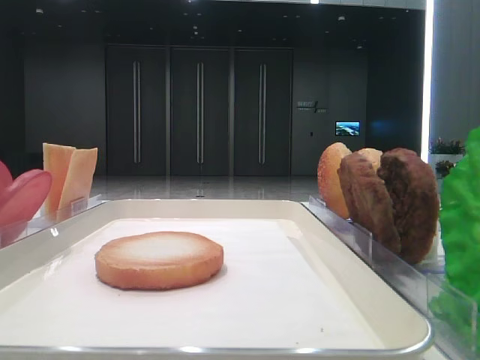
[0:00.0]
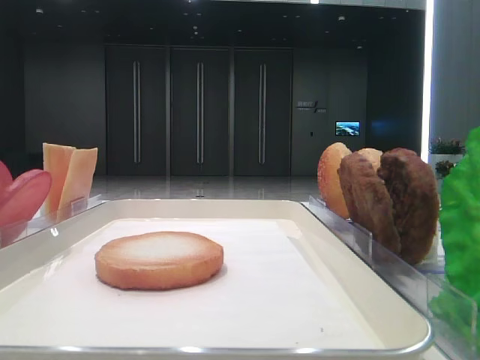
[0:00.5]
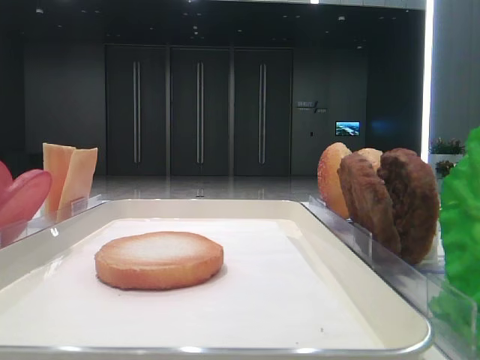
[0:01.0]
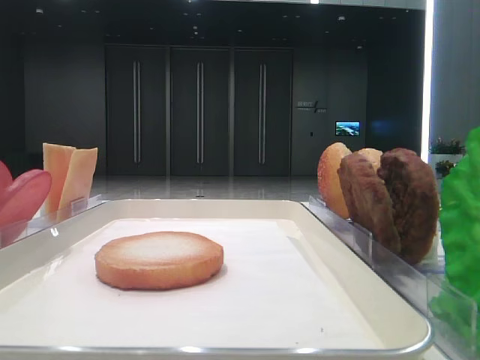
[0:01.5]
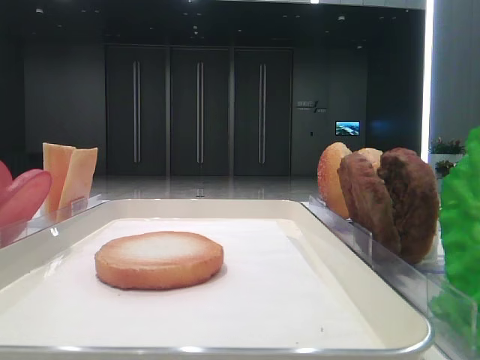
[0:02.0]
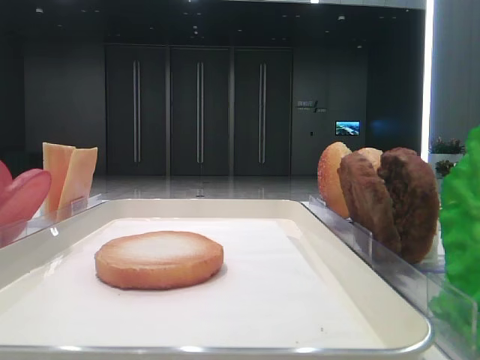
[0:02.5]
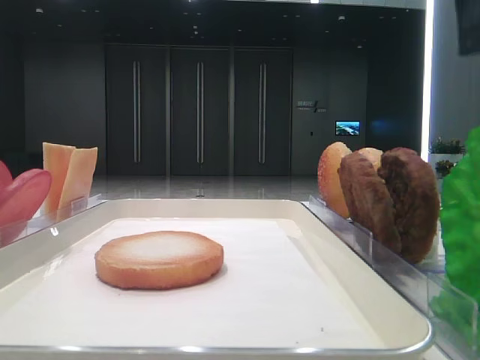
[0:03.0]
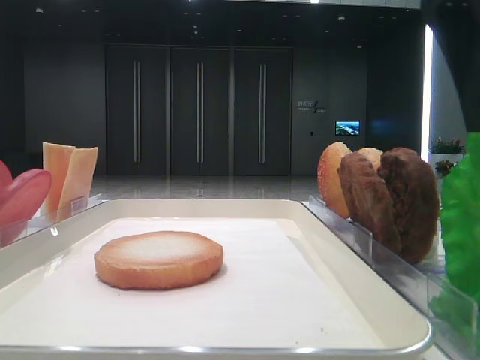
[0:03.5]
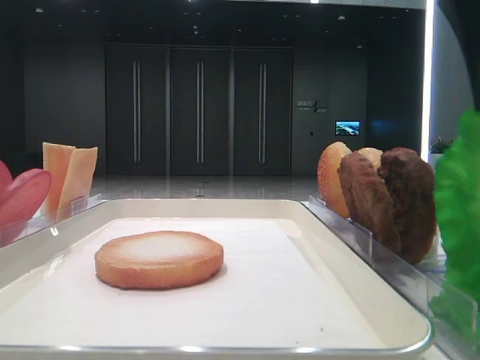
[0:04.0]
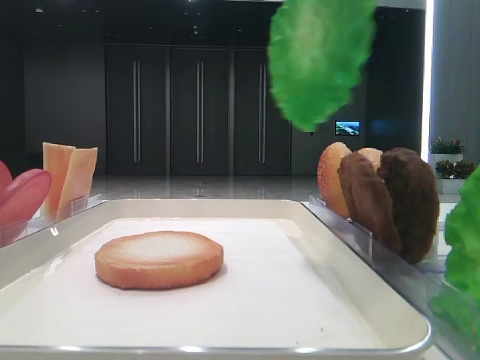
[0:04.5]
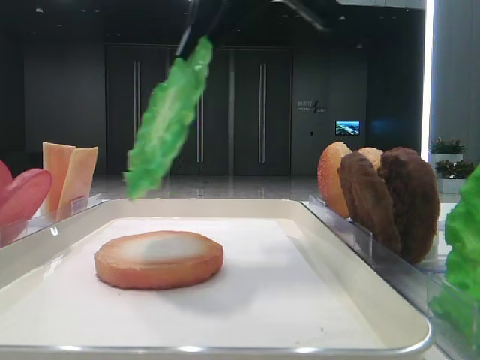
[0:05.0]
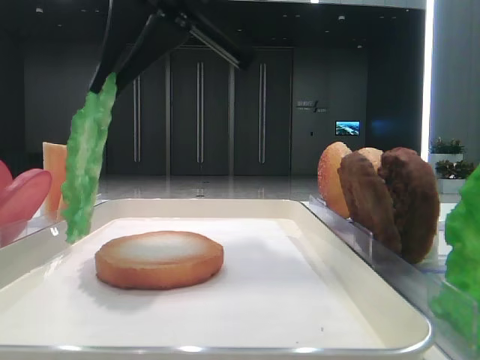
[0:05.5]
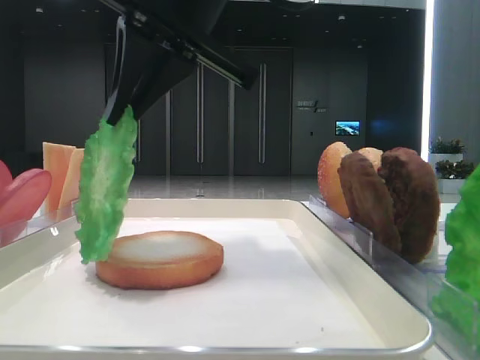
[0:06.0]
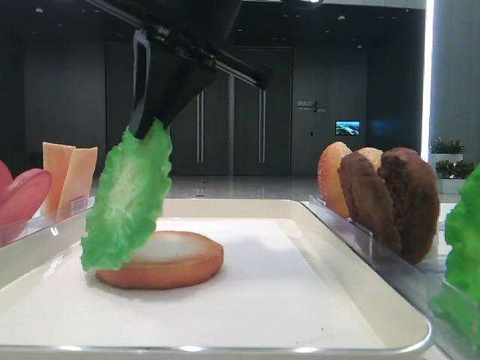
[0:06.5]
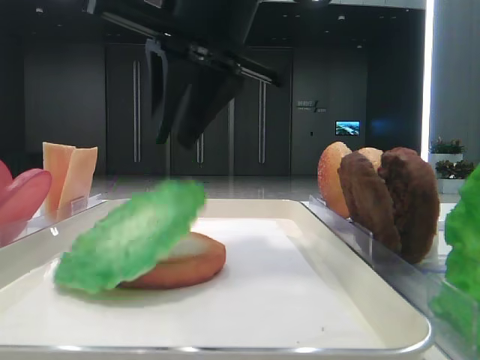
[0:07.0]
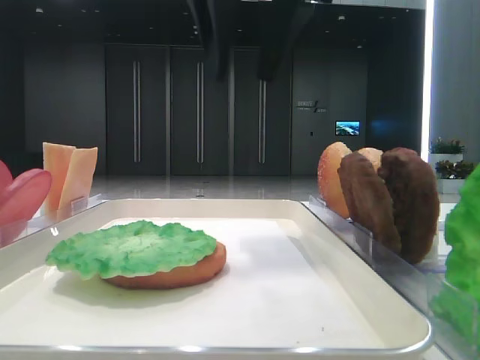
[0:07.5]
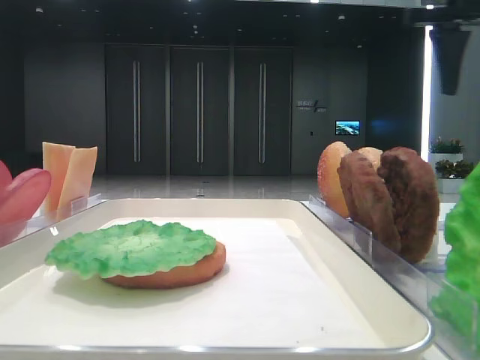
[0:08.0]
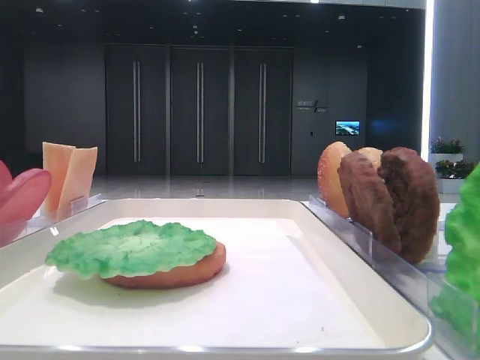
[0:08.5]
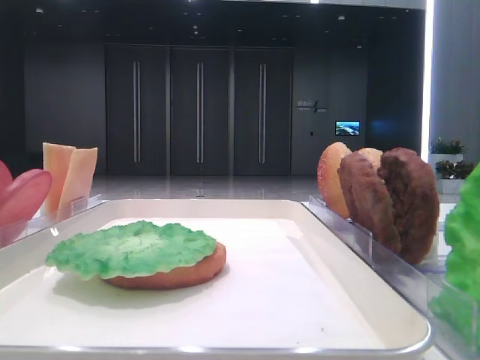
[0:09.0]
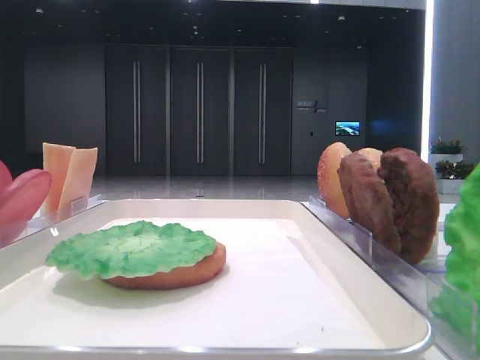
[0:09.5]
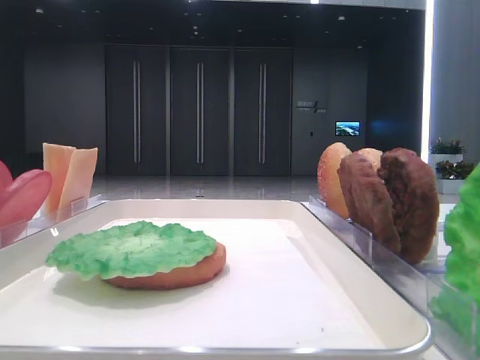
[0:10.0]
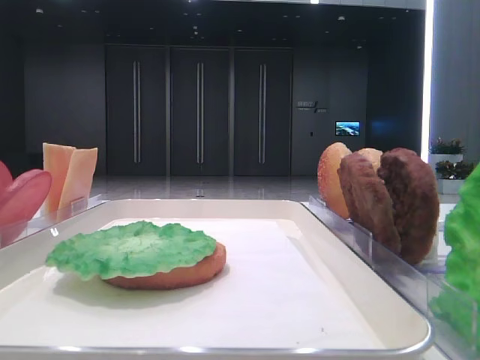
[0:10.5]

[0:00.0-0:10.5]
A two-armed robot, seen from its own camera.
Step, 0:00.0 to 0:03.5: Grab the lettuce leaf with the right hand.
Step, 0:04.0 to 0:07.0: Place the lettuce leaf on the bottom bread with the right hand.
0:02.0 to 0:04.0: The right gripper shifts about 20 cm to the left and forward, and closes its fingers.
0:04.0 to 0:06.5: The right gripper moves to the left and forward, some 15 cm; the left gripper closes.
0:06.5 to 0:08.5: The right gripper travels to the right by approximately 35 cm, and opens.
0:08.5 to 0:10.5: The right gripper heads backward, covering some 30 cm.

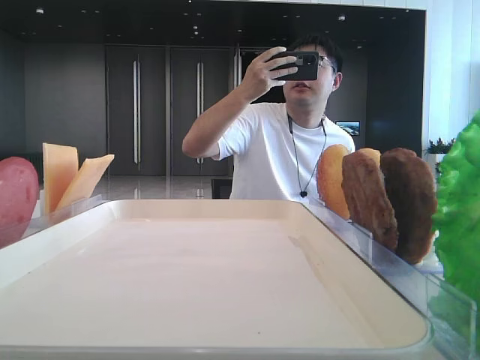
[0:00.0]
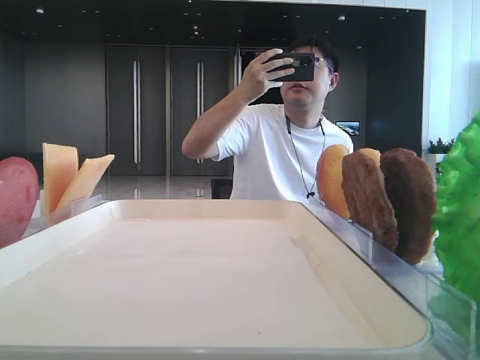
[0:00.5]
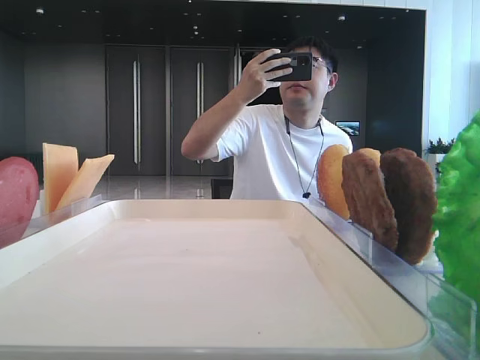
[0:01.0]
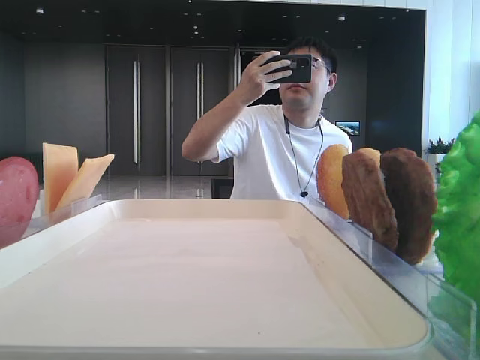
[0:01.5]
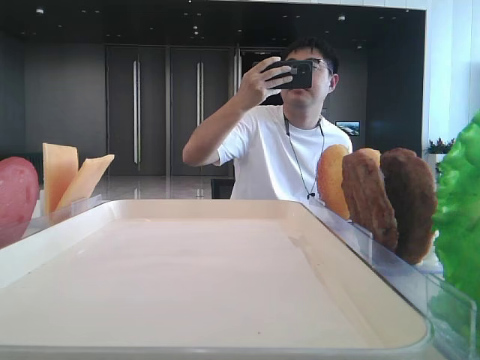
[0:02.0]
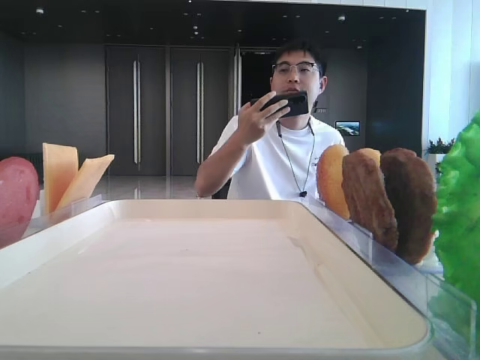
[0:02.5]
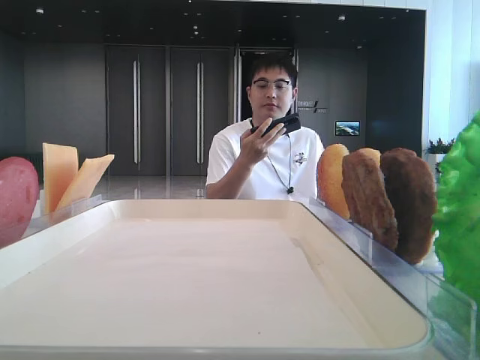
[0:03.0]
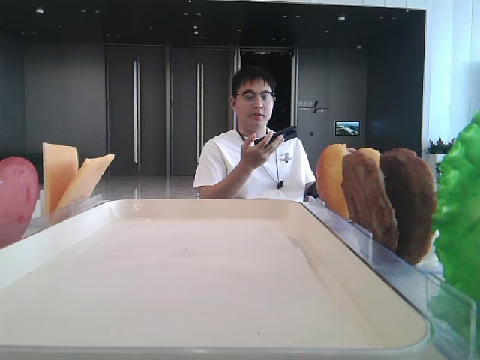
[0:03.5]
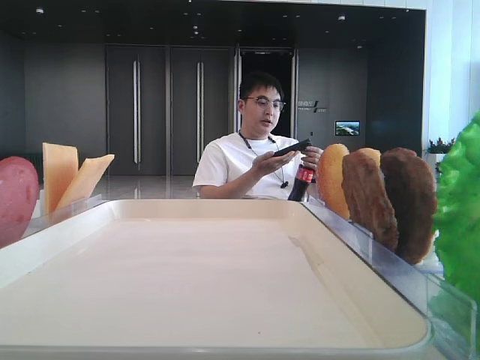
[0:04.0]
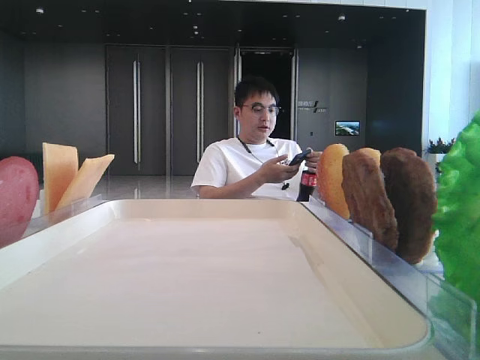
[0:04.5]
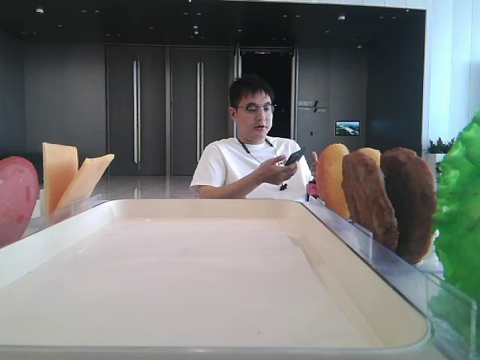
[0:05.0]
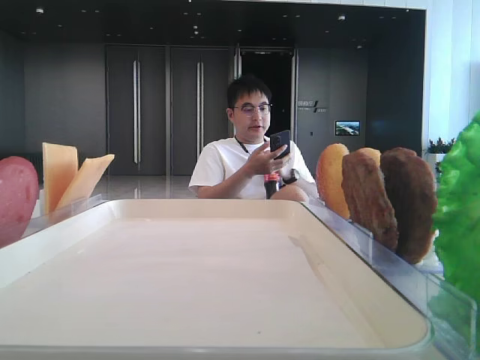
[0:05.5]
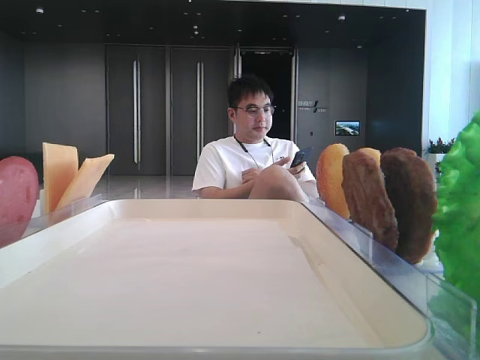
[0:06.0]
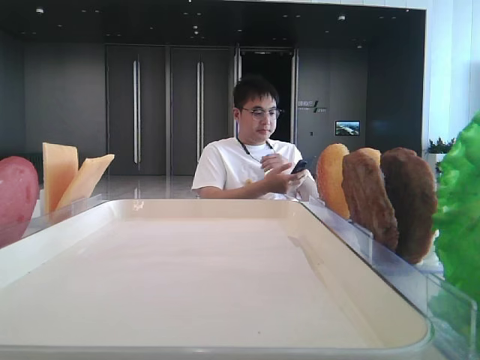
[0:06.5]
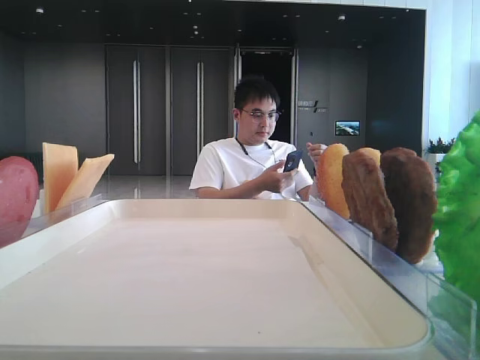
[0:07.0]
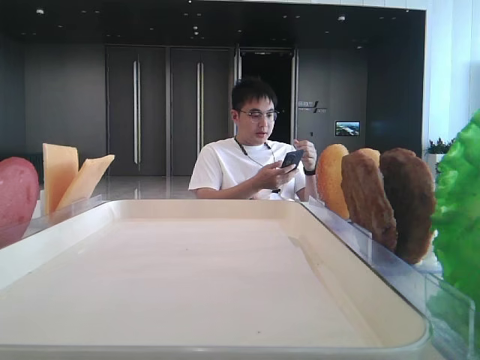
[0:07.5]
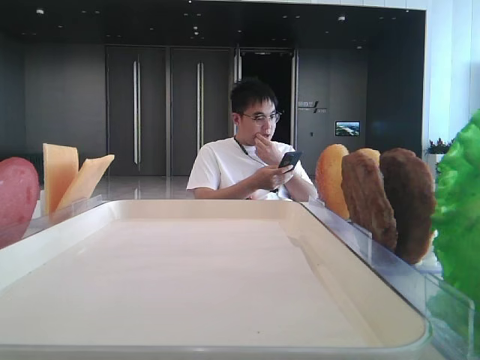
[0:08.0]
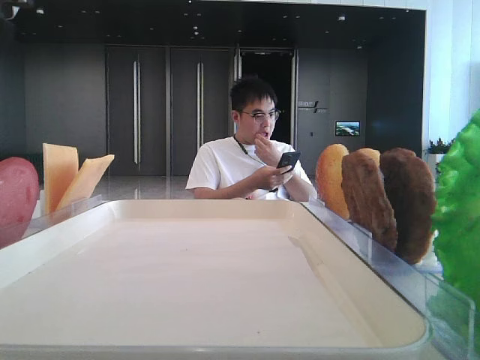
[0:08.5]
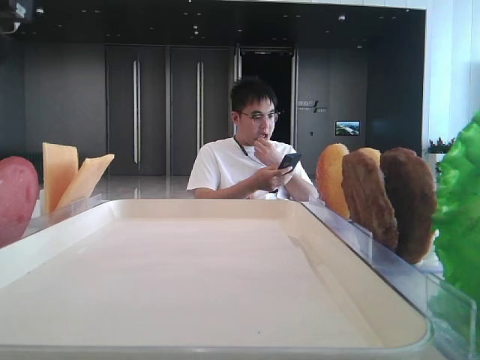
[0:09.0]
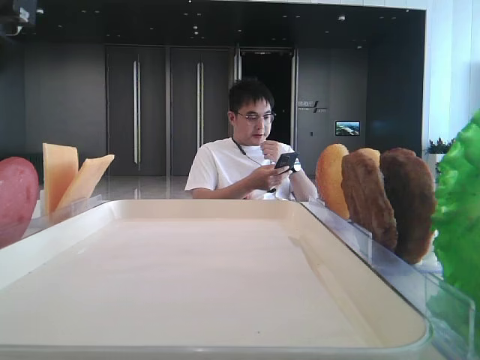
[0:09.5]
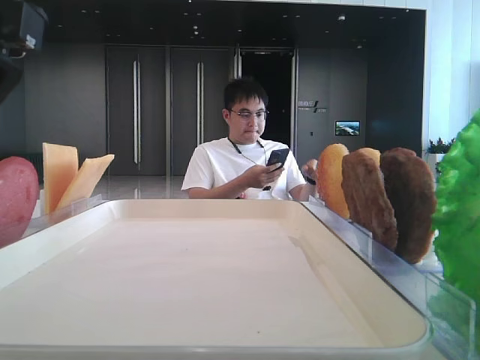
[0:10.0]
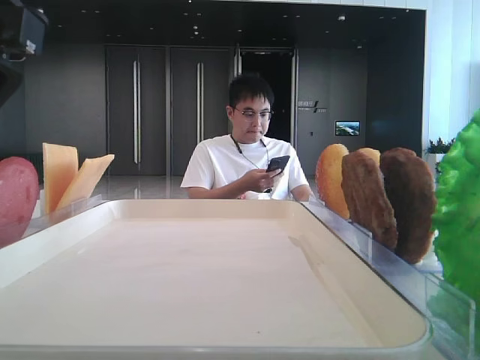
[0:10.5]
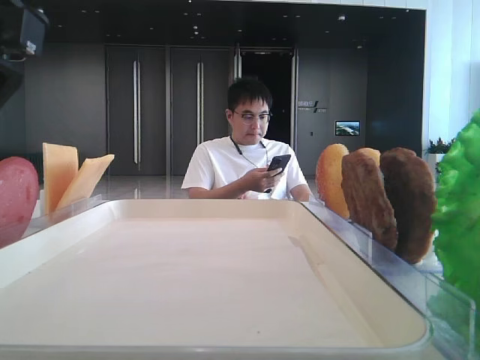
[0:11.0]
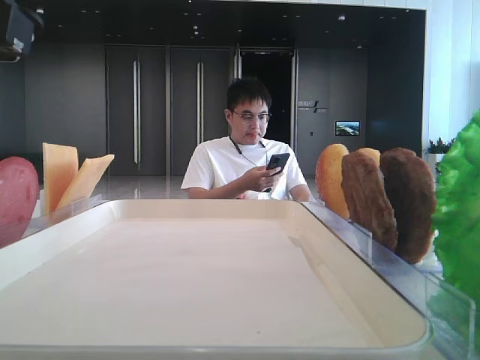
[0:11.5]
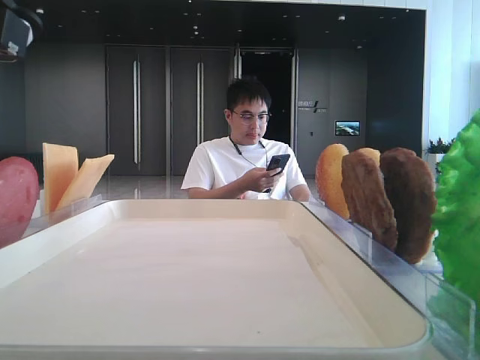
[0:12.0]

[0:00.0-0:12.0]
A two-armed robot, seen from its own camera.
0:02.0 to 0:04.0: The left gripper shifts roughly 10 cm forward and upward.
0:04.0 to 0:06.0: The left gripper shifts some 5 cm forward.
0:06.0 to 0:08.0: The left gripper heads to the right, covering approximately 10 cm.
0:08.0 to 0:10.0: There are only small adjustments of the grippers.
0:10.0 to 0:12.0: The left gripper closes up.

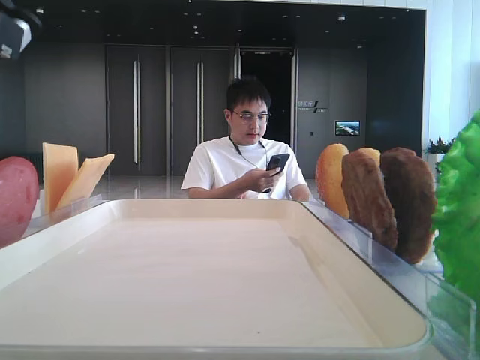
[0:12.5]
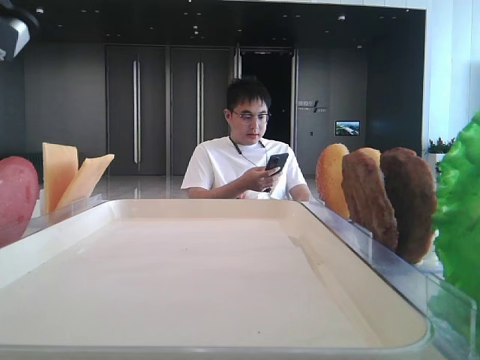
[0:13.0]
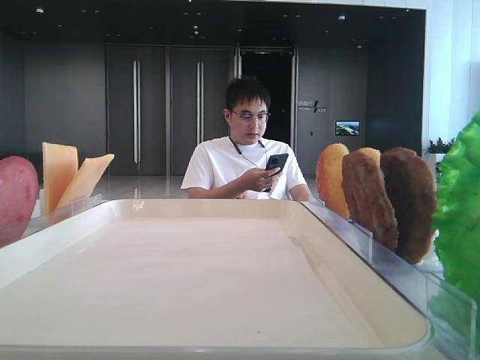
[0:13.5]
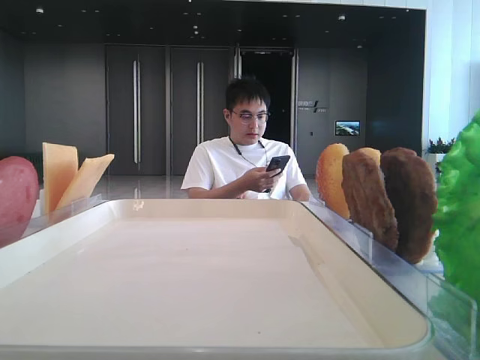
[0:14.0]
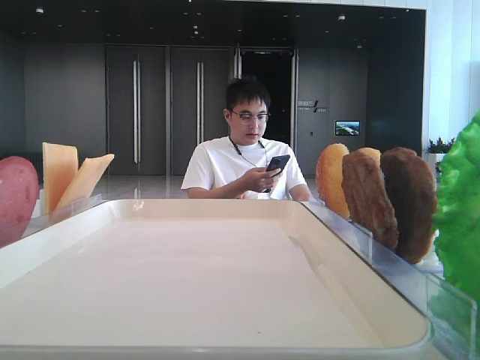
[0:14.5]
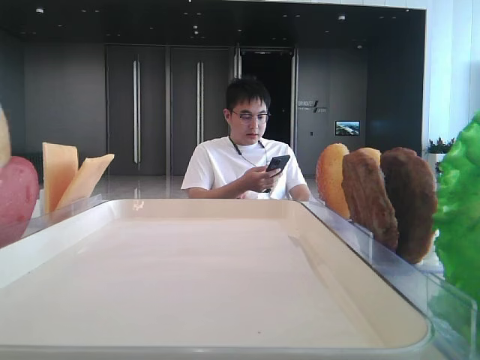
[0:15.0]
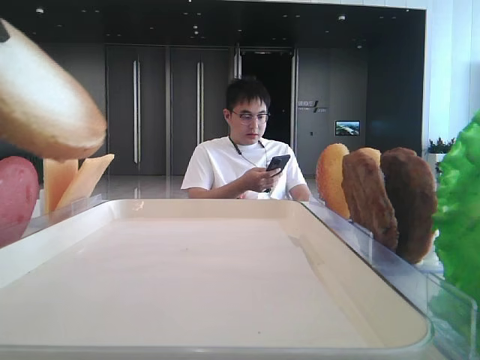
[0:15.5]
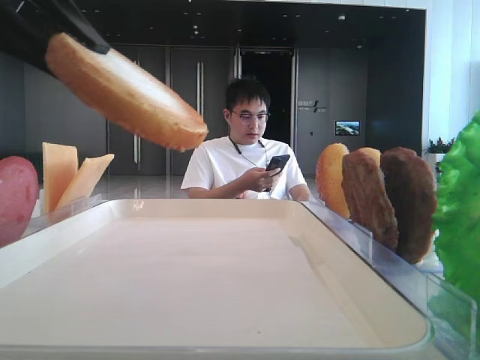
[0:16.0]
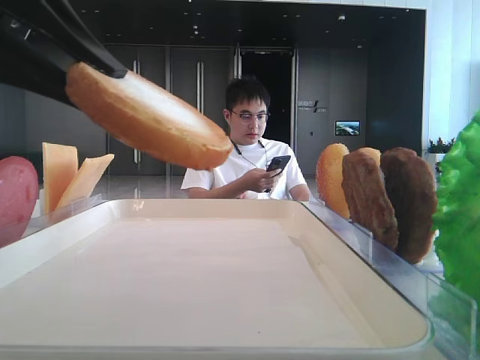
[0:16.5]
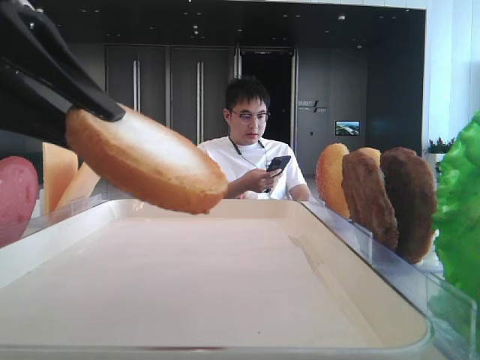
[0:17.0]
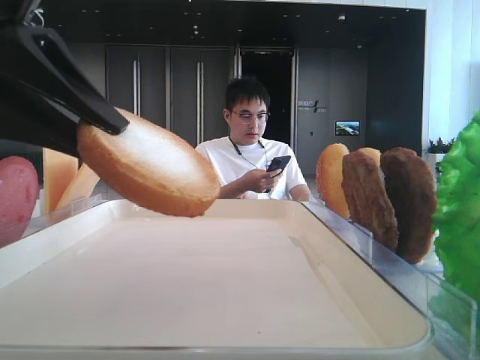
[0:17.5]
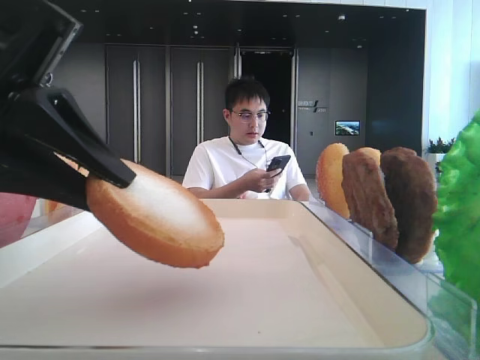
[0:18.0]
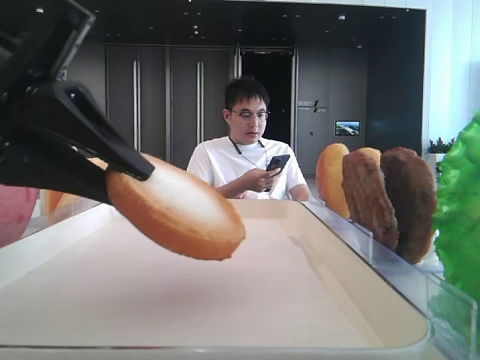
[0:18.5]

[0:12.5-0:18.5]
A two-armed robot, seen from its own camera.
0:12.5 to 0:14.5: The left gripper is displaced upward by approximately 10 cm.
0:14.5 to 0:16.5: The left gripper heads downward, covering some 10 cm.
0:16.5 to 0:18.5: The left gripper heads downward, covering approximately 5 cm.
